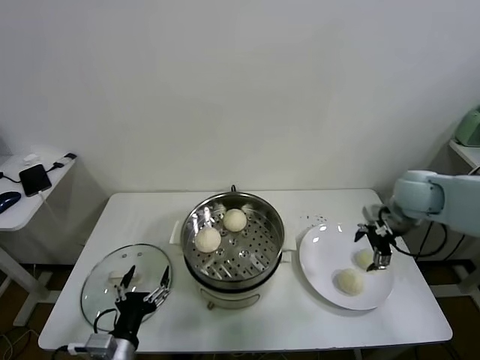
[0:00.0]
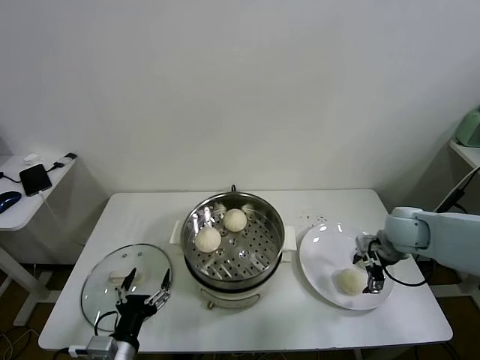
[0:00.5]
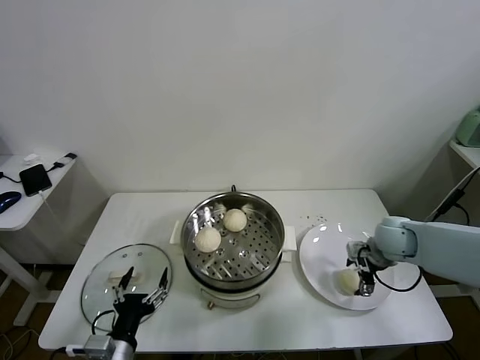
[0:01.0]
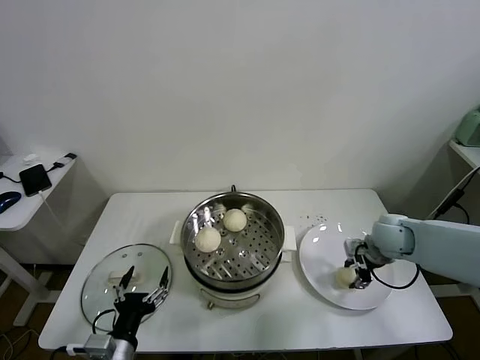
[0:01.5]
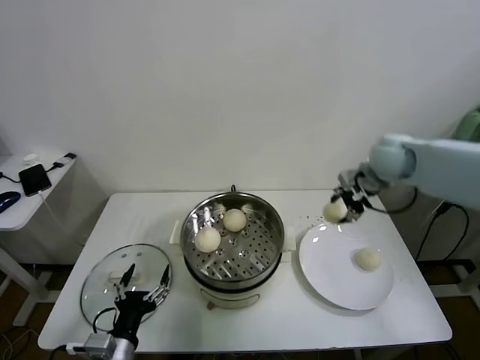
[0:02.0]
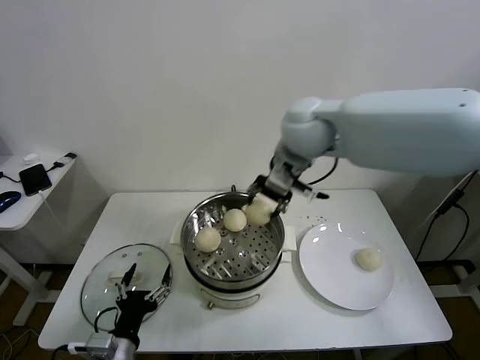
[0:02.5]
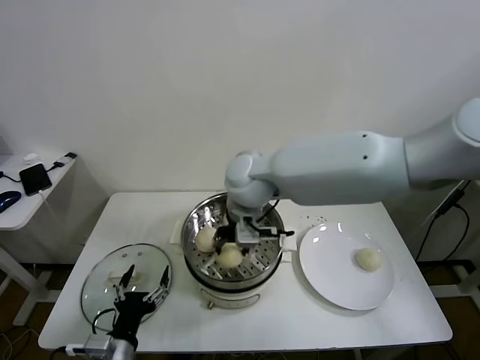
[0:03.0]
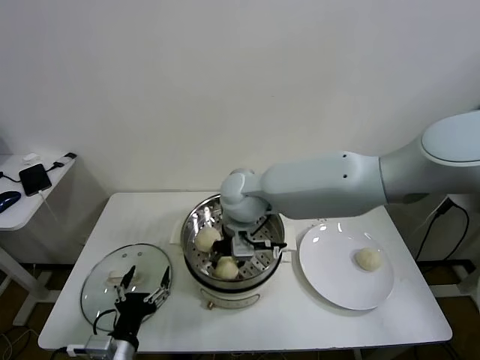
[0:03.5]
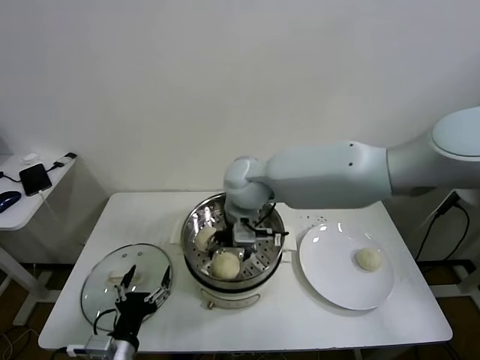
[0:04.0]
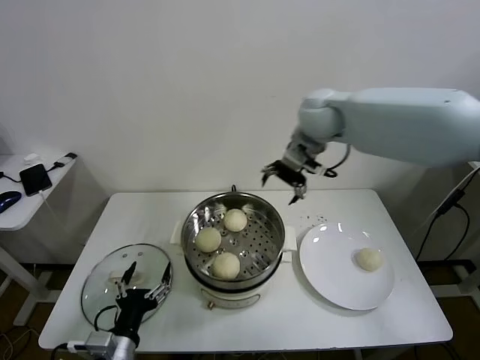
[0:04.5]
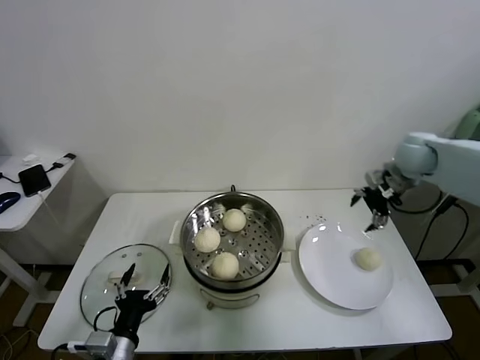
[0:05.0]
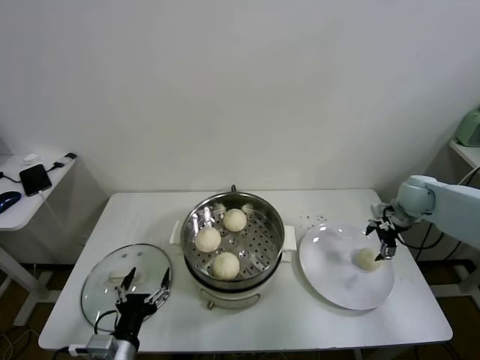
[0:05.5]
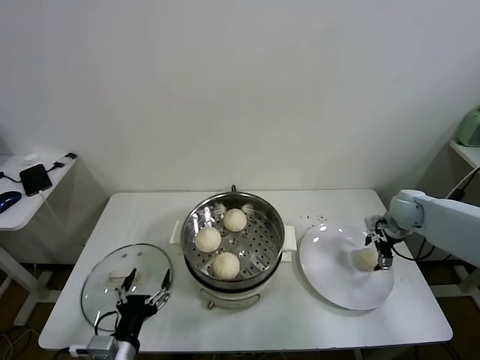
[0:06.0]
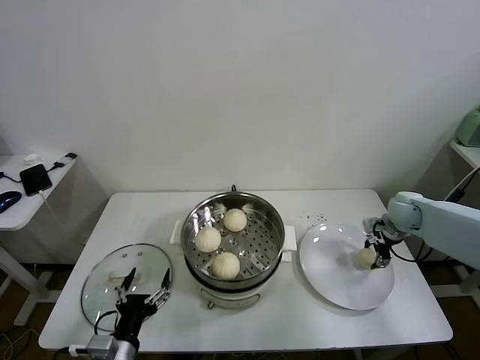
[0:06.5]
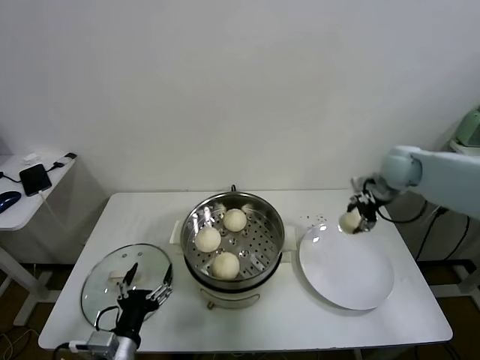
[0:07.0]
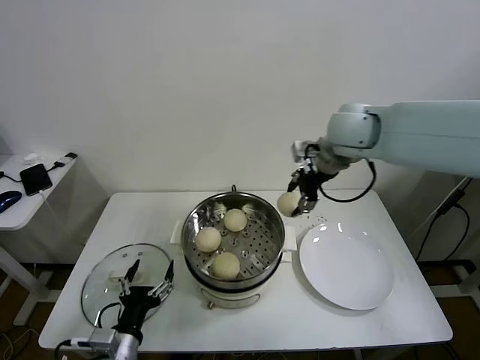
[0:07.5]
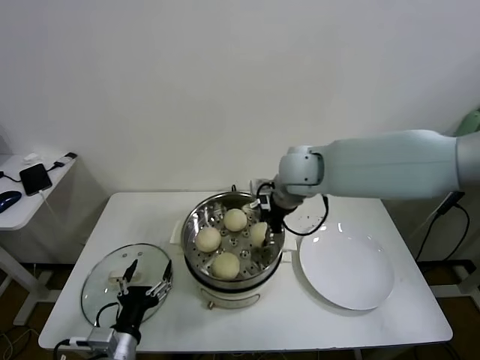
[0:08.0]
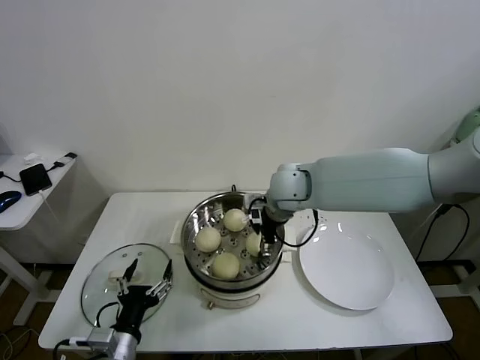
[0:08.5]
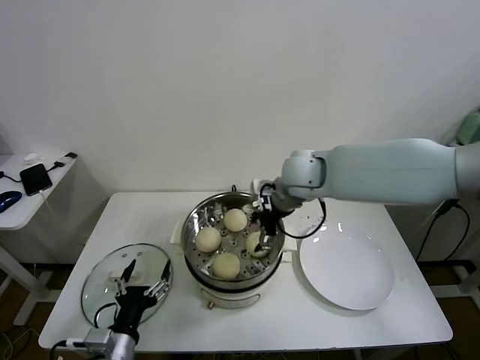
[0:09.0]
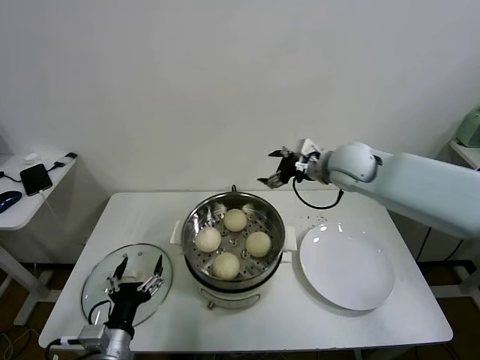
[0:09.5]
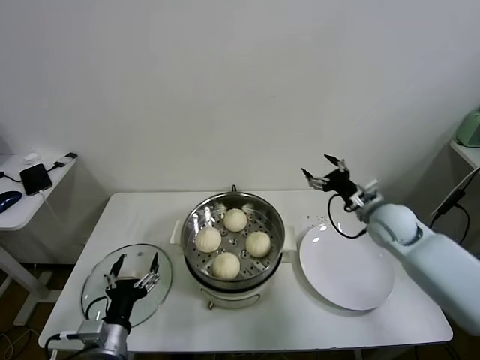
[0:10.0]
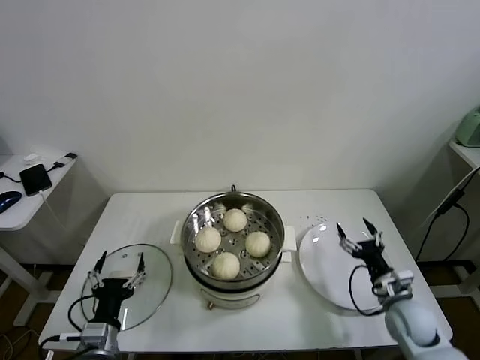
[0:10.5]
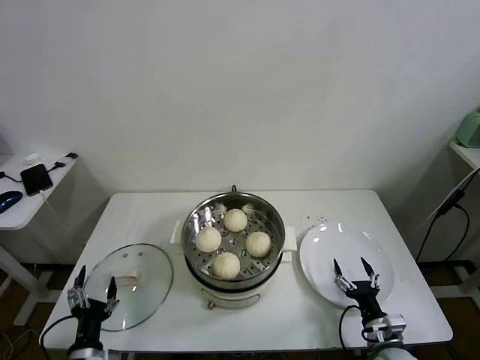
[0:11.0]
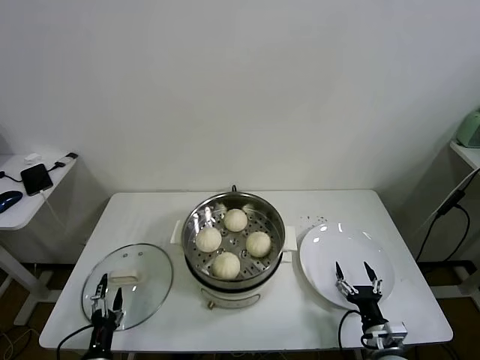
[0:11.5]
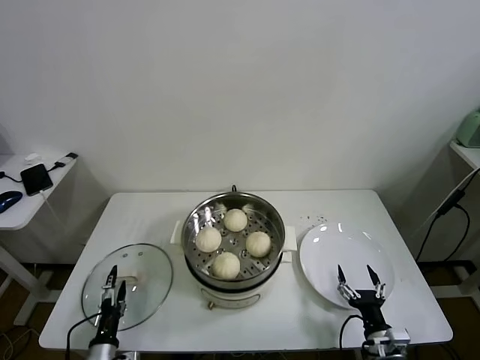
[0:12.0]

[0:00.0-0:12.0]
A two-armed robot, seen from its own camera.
Task of the whole recording: take steamed baozi put them in steamer.
Step, 0:01.5 to 0:04.0: Place the baozi on the steamer with right gripper.
Step, 0:04.5 to 0:06.0: Grasp the baozi in the plate with right gripper.
Step, 0:07.0 to 0:08.5: Place the baozi on the steamer with right gripper.
0:00.0 to 0:02.0: The right gripper moves upward, forward and to the left, about 10 cm, and closes.
0:02.0 to 0:04.0: The right gripper is displaced to the left by roughly 30 cm, and opens.
0:04.0 to 0:06.0: The right gripper moves to the right, about 40 cm.
0:06.0 to 0:08.0: The right gripper shifts approximately 35 cm to the left and upward, and closes.
0:08.0 to 0:10.0: The right gripper moves to the right and downward, about 25 cm, and opens.
0:10.0 to 0:12.0: The left gripper moves downward and to the left, some 15 cm. Meanwhile the right gripper heads backward and downward, covering roughly 35 cm.

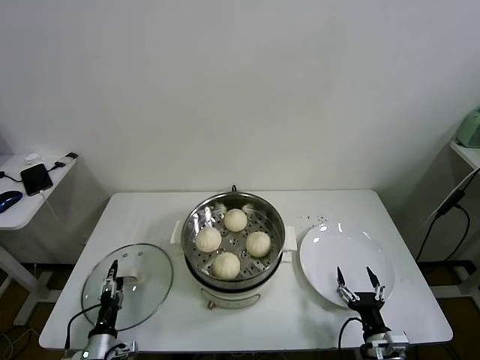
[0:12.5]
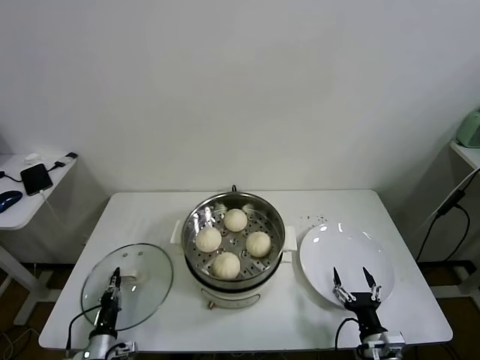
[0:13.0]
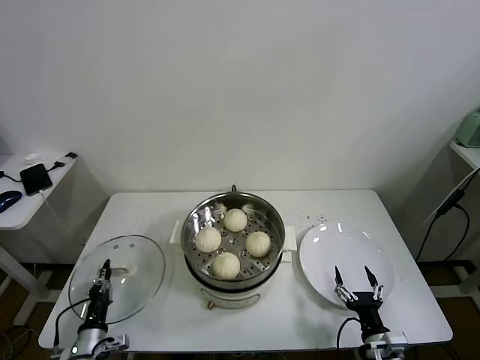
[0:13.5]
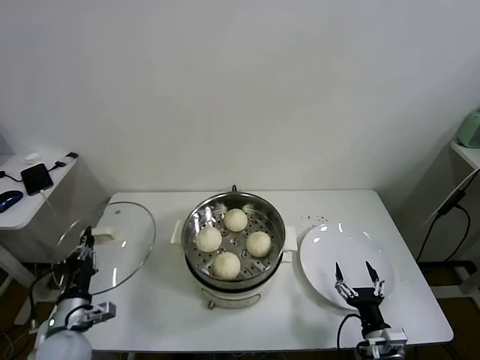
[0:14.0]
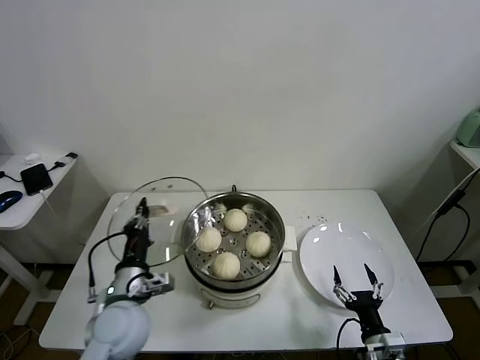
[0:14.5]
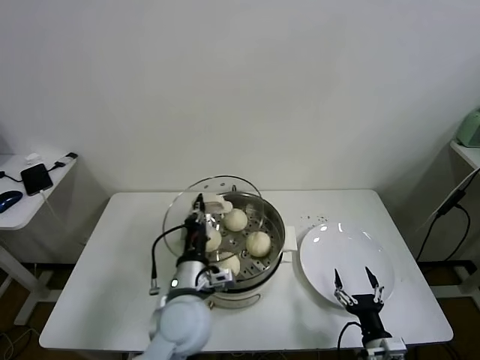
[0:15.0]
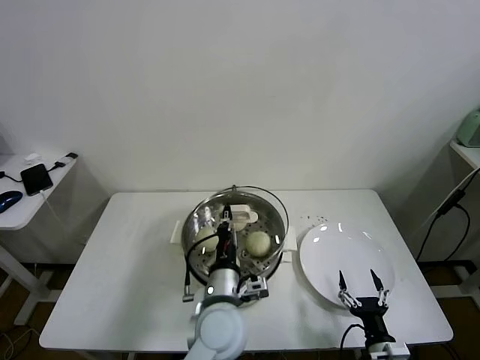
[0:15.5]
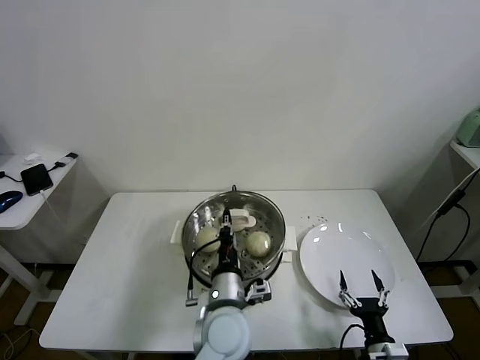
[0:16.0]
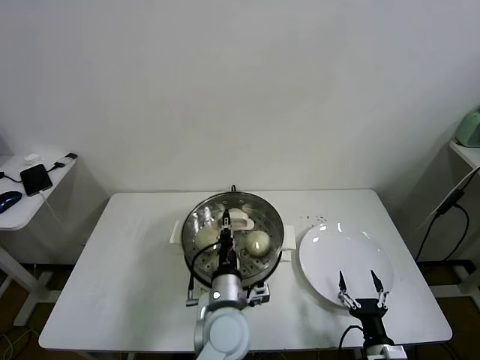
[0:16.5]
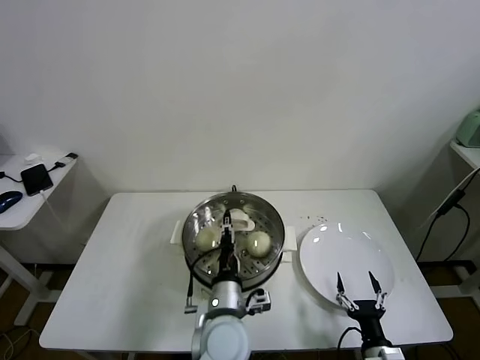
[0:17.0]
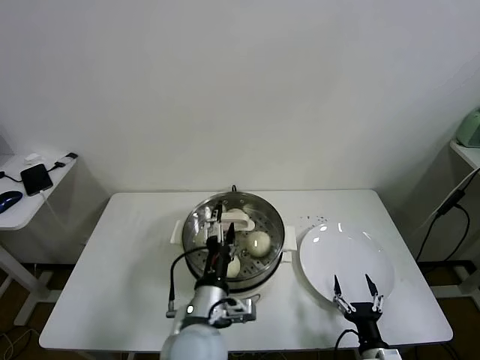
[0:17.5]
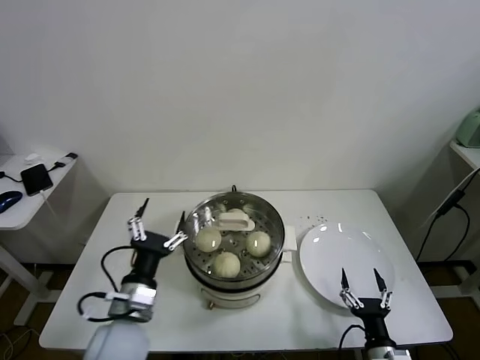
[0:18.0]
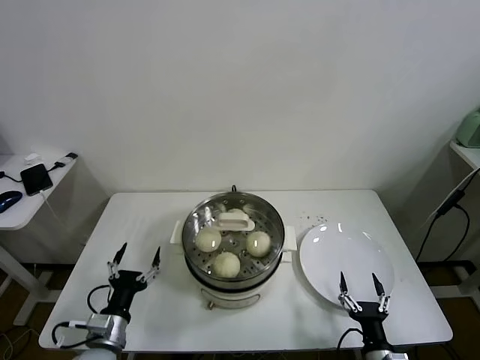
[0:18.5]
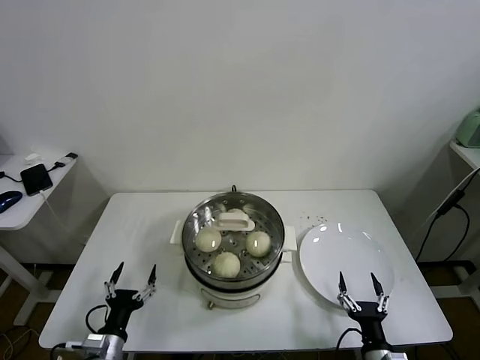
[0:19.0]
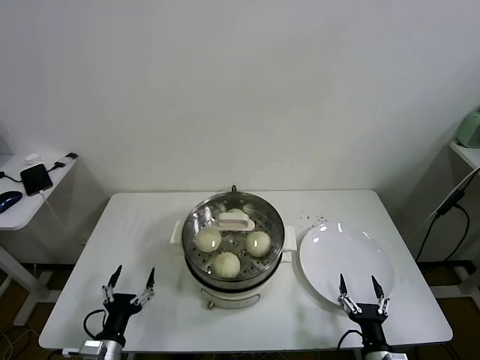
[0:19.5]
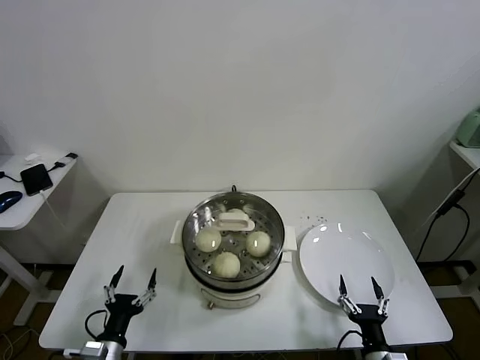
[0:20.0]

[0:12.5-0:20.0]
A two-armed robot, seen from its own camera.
Task of the whole recording: take steamed baozi put them in steamer.
Step, 0:13.5 to 0:17.0: Place the pot lid on the steamer with left gripper.
0:12.5 to 0:14.5: The left gripper travels upward and to the right by roughly 25 cm, and closes up.
0:14.5 to 0:16.5: The left gripper heads to the right, covering approximately 20 cm.
0:16.5 to 0:18.0: The left gripper goes roughly 15 cm to the left, and opens its fingers.
0:18.0 to 0:20.0: The left gripper heads downward, to the left and backward, covering roughly 20 cm.
